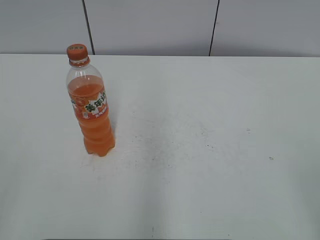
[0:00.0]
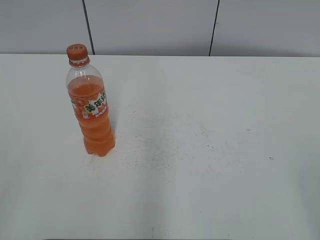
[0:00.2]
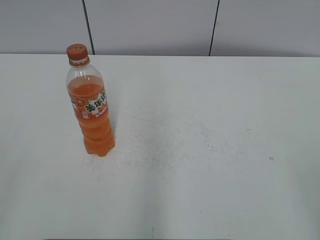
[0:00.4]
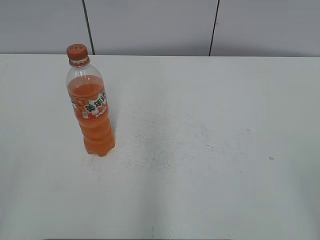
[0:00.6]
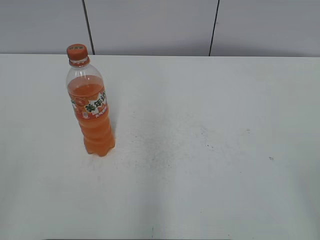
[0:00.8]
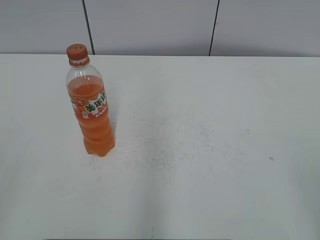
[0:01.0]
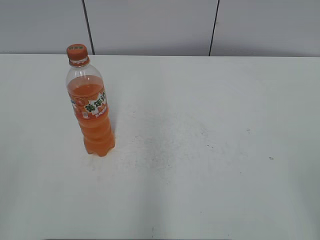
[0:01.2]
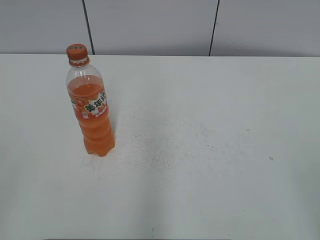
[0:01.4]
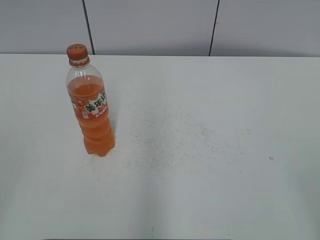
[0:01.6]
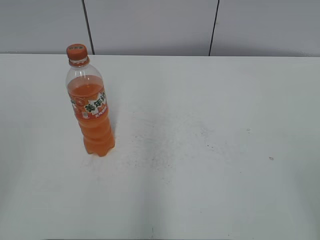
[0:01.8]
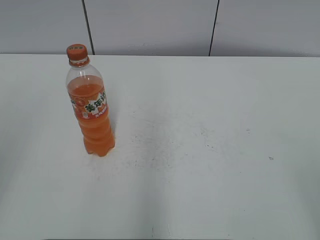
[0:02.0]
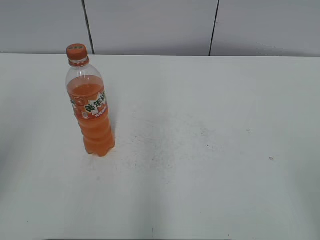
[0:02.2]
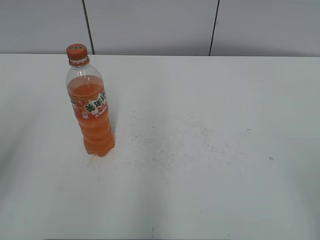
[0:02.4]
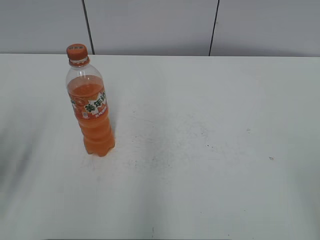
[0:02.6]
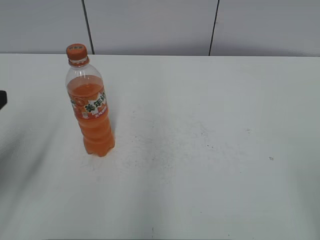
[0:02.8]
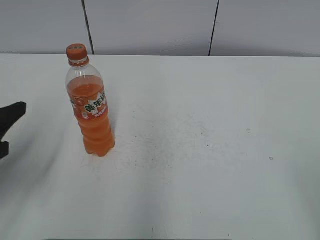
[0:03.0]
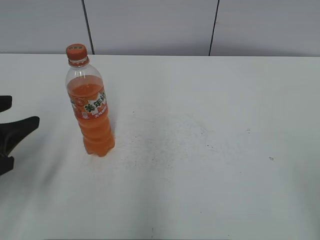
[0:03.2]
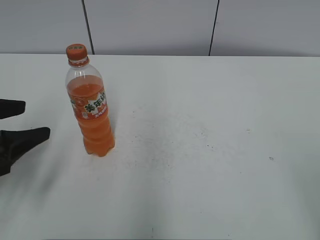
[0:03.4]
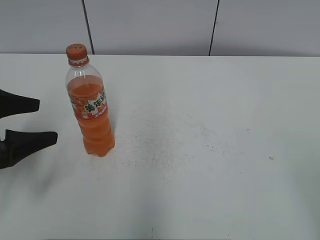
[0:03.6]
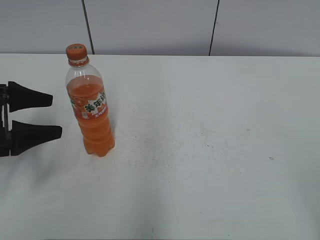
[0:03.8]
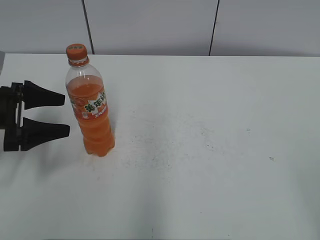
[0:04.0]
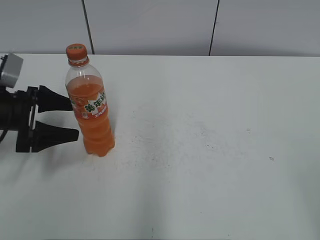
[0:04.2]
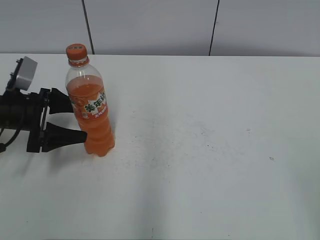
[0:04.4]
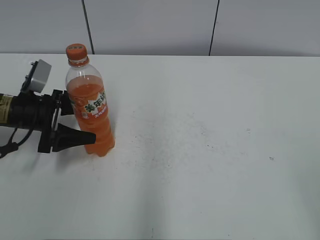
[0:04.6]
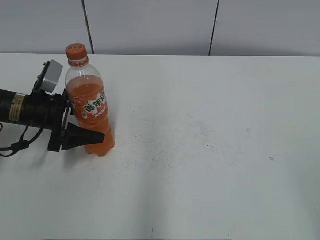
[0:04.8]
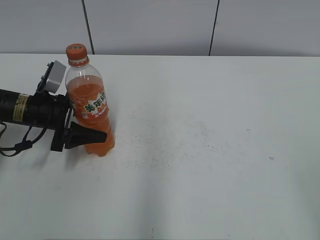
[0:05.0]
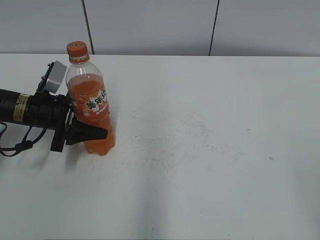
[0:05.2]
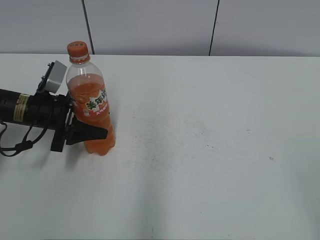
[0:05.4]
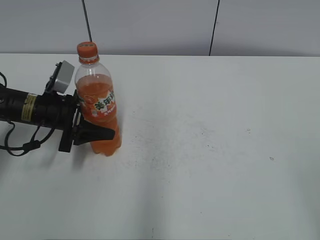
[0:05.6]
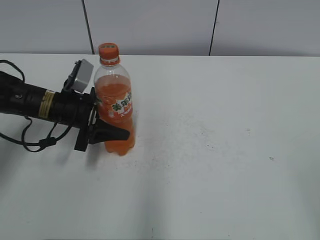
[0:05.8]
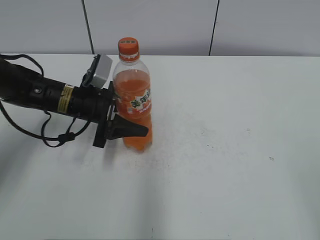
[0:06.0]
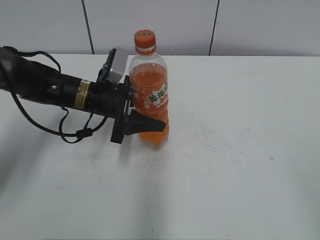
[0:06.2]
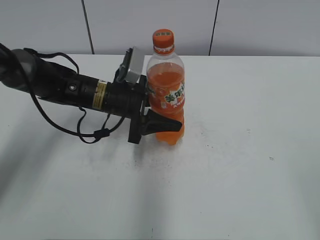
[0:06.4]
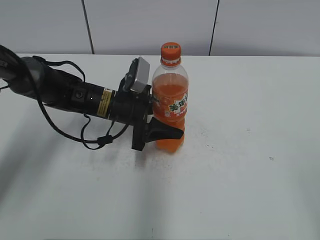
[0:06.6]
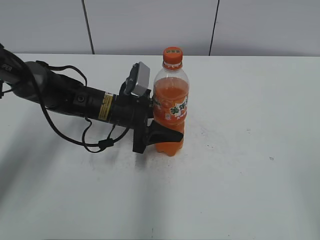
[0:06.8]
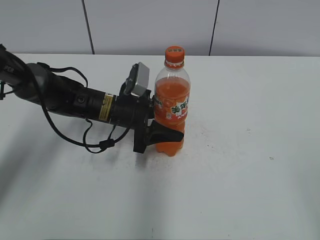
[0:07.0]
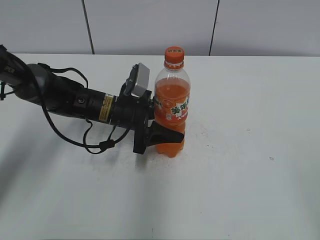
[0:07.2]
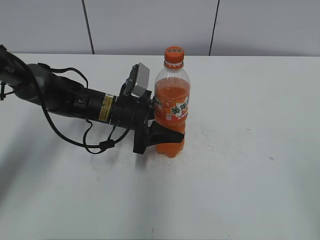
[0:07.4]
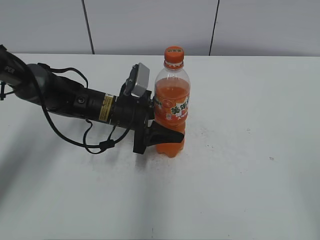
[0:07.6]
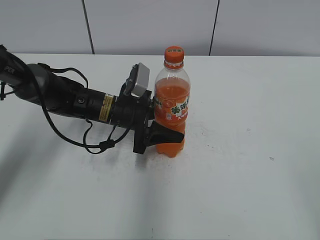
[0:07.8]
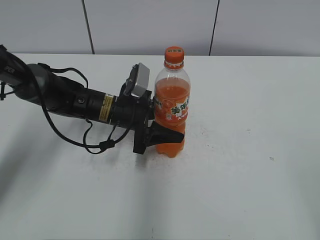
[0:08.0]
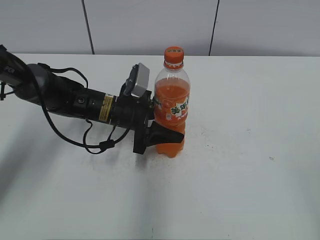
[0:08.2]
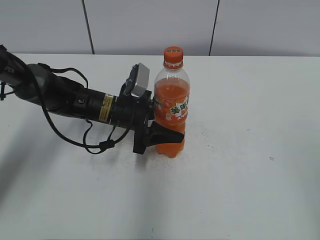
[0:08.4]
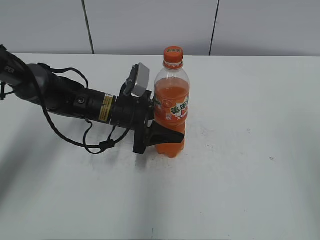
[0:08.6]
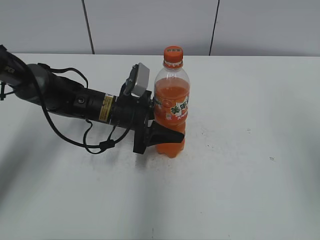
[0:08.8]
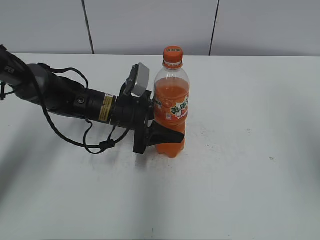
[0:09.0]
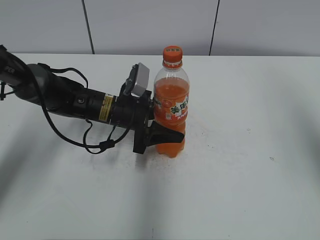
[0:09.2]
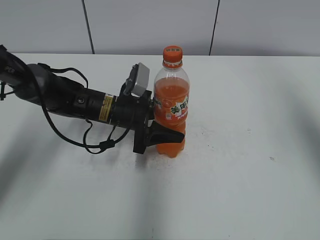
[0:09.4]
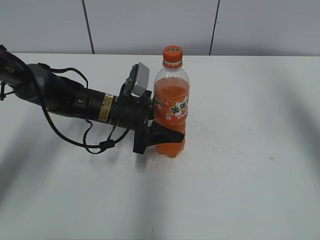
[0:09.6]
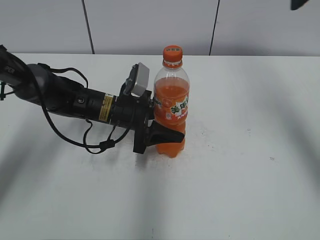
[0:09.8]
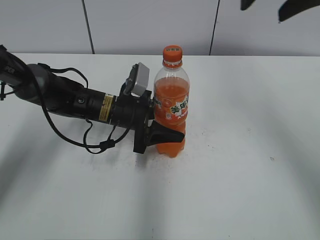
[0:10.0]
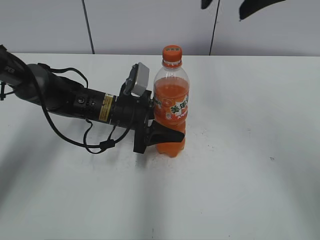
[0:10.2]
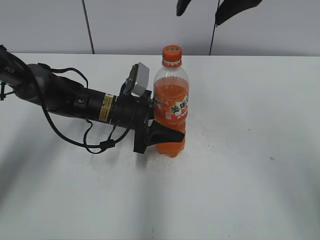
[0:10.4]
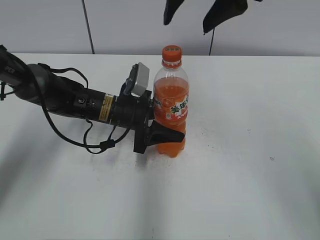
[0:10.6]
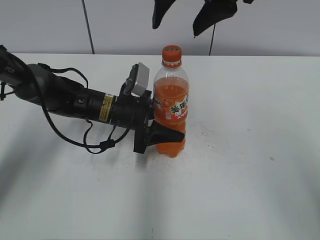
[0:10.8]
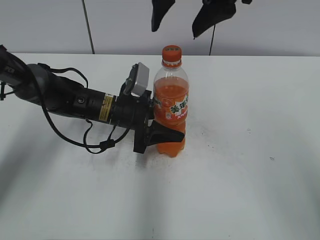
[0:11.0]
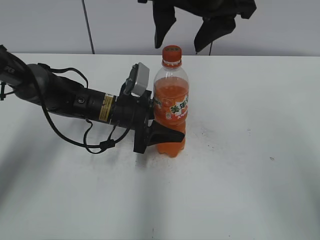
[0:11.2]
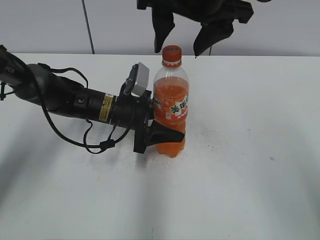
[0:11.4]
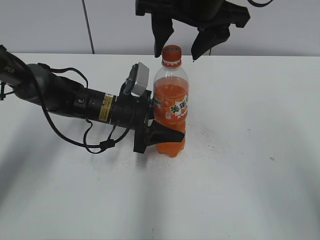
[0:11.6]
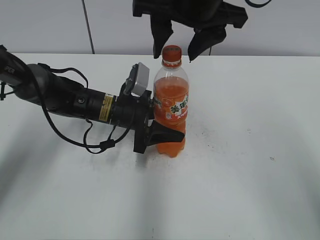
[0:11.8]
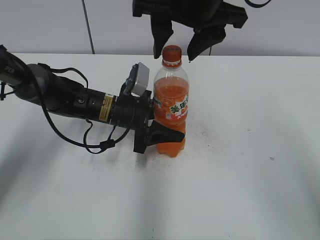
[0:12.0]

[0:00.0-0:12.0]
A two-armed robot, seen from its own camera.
Step, 0:00.0 to 0:05.0: Grab the Mirinda with the left hand.
Step, 0:05.4 to 0:07.2: Move the Mirinda from left to right.
0:01.6 to 0:03.0: The left gripper moves forward and downward, roughly 20 cm.
0:03.0 to 0:04.4: The left gripper goes about 20 cm forward and downward, and opens up.
0:04.4 to 0:06.0: The left gripper heads to the right, covering roughly 10 cm, and closes its fingers.
0:06.0 to 0:07.6: The left gripper moves to the right, approximately 5 cm.
0:07.6 to 0:09.0: The right gripper shifts about 15 cm forward and upward.
0:09.0 to 0:10.4: The right gripper travels to the left and forward by roughly 30 cm.
0:10.4 to 0:12.0: The right gripper moves approximately 5 cm.

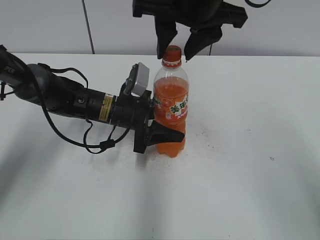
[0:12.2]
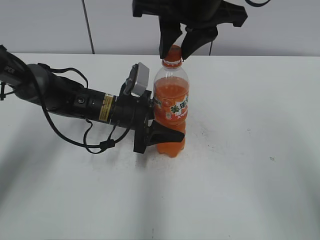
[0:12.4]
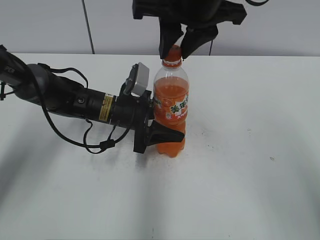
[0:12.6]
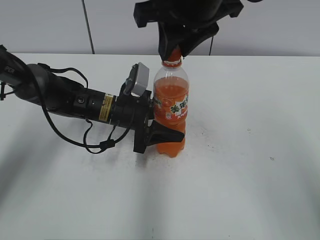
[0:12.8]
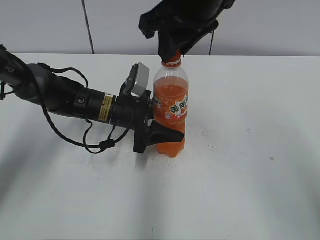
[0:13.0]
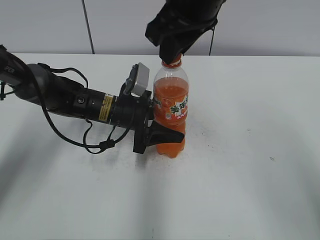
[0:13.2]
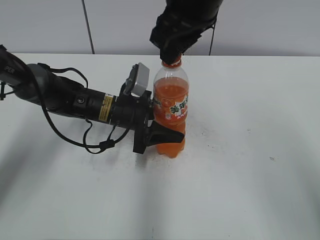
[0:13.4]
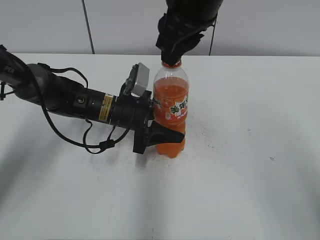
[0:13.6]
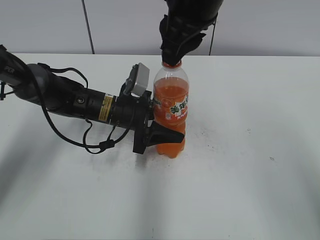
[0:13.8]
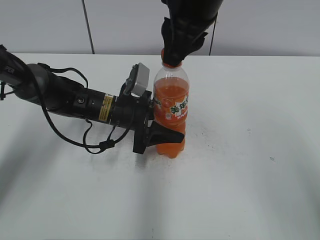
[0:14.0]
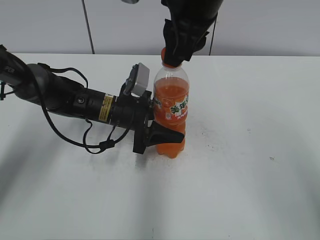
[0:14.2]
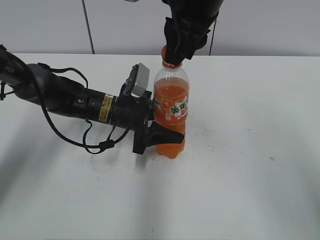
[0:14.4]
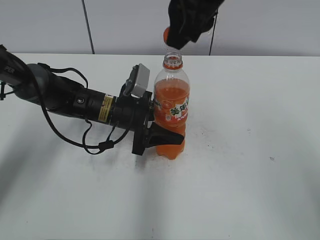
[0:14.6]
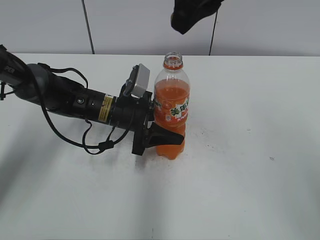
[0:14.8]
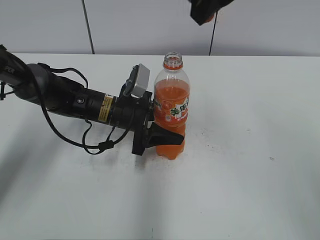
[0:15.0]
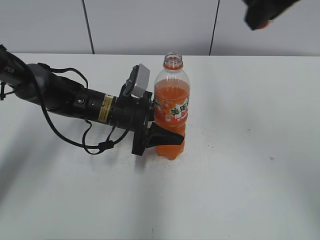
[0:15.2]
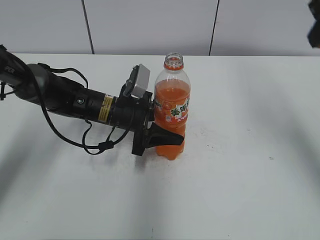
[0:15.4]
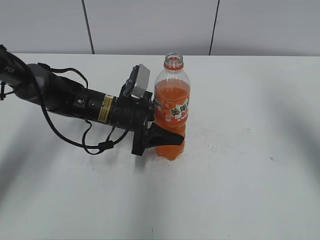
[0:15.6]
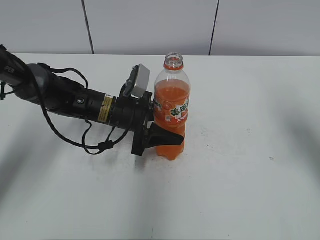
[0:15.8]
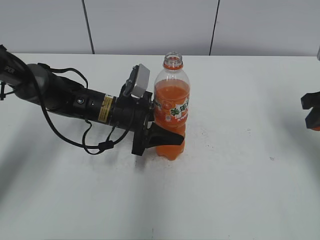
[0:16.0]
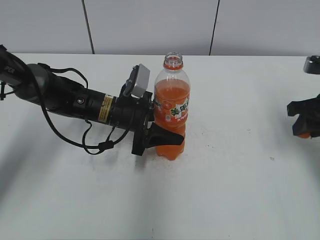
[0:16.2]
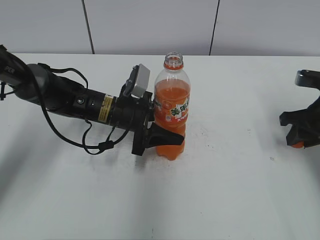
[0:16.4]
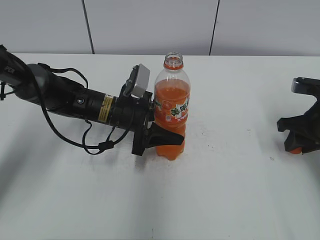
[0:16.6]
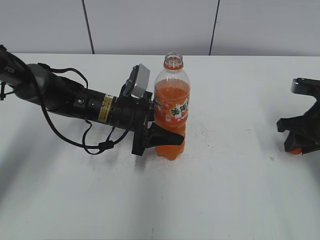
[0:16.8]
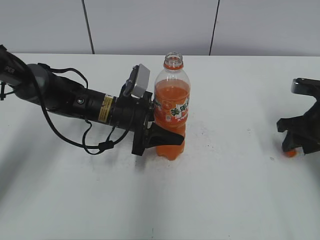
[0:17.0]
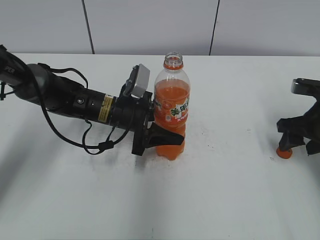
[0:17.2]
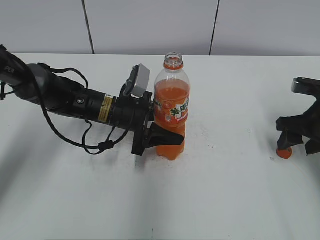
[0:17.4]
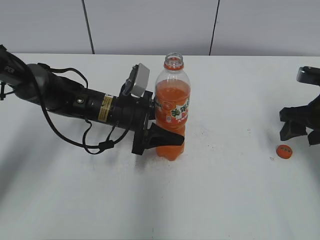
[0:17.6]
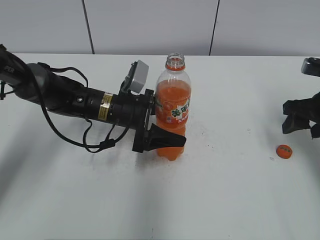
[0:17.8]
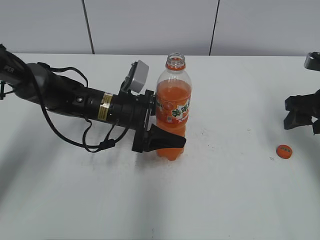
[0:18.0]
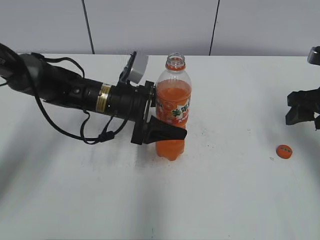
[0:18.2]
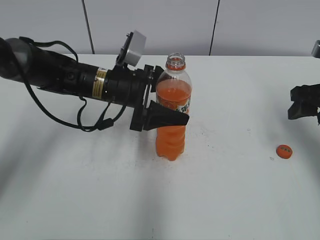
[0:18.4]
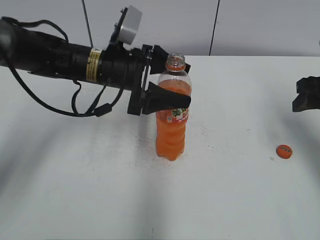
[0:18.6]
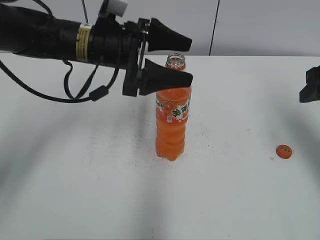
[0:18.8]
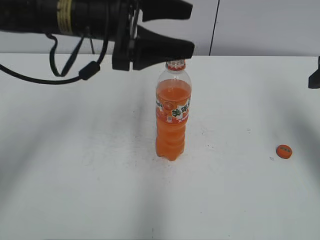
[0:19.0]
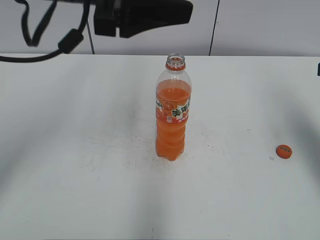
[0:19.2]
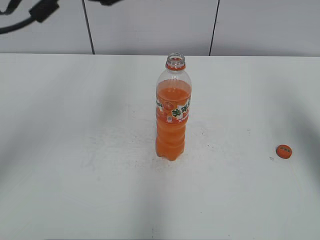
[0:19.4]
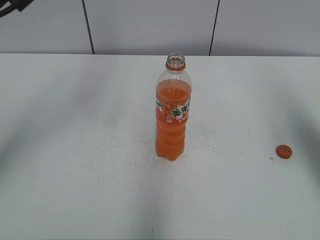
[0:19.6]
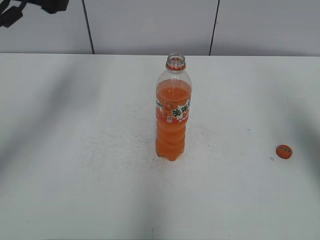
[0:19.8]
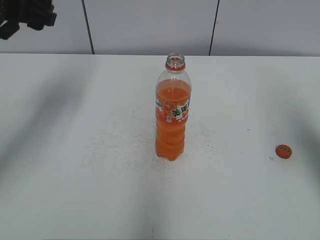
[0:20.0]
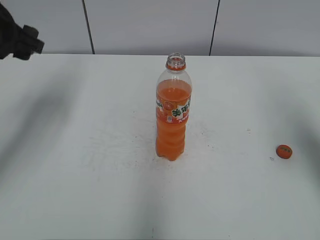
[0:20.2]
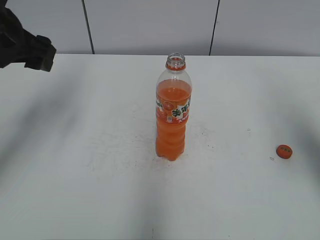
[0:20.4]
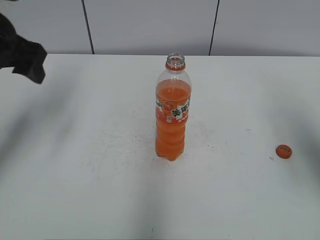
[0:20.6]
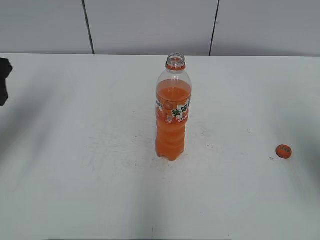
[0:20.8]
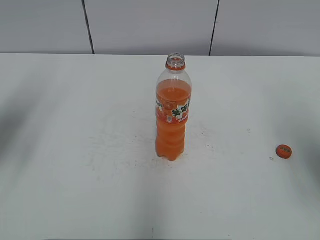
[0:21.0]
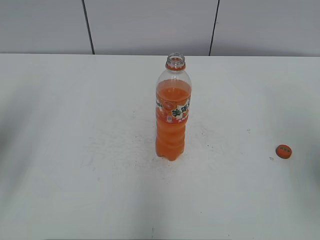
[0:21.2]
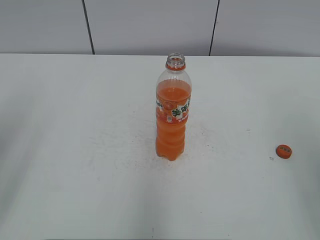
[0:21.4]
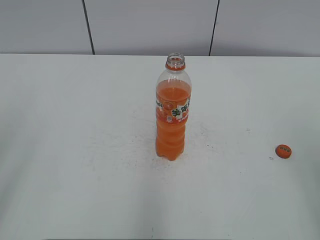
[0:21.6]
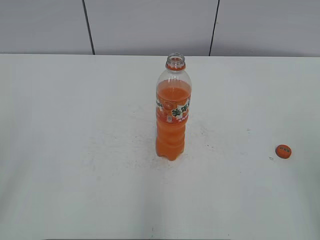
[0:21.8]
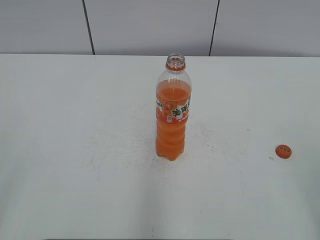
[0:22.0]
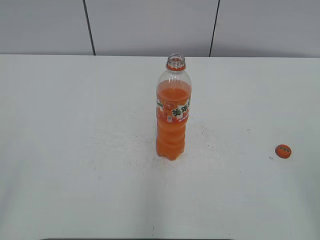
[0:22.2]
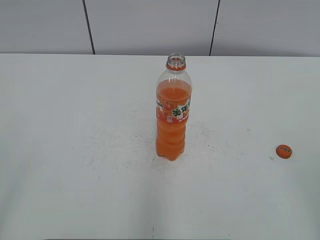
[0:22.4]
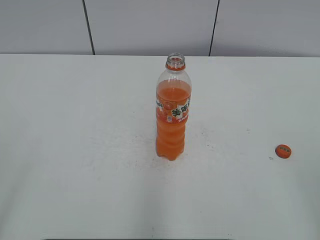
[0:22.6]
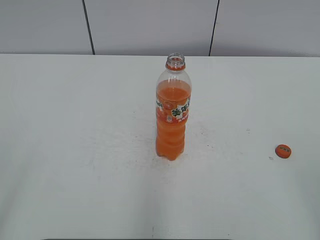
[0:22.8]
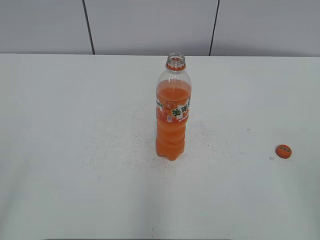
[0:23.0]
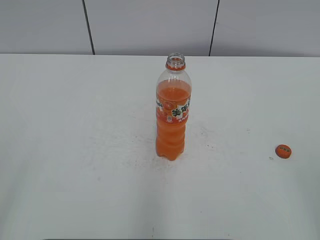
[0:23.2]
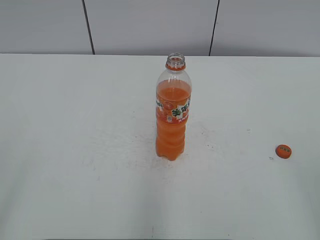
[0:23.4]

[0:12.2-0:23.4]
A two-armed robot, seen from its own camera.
Step, 0:12.2 to 0:14.4: Fix the Mirinda on the left.
Step, 0:14.6 to 0:17.2: Place the bottle cap on the right.
Step, 0:17.6 to 0:17.8: Place the Mirinda with the left hand.
0:12.2 to 0:13.8: The right gripper closes.
0:13.8 to 0:15.4: The right gripper moves to the right, roughly 20 cm.
0:15.4 to 0:17.0: The right gripper is displaced downward by roughly 25 cm.
0:17.0 to 0:18.6: The grippers both shift upward by some 10 cm. The right gripper opens up. The left gripper opens up.
0:18.6 to 0:20.2: The left gripper shifts approximately 20 cm to the left and upward. The right gripper travels upward and backward by approximately 10 cm.
0:20.2 to 0:21.8: The right gripper is displaced backward by some 15 cm, while the left gripper heads backward, covering approximately 30 cm.
